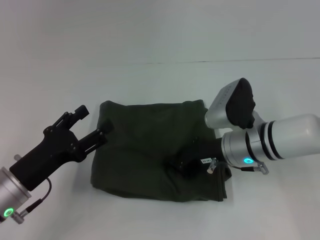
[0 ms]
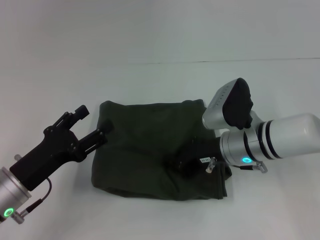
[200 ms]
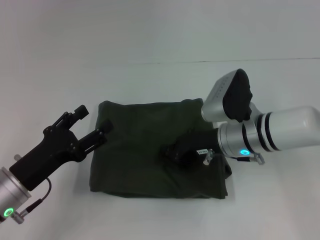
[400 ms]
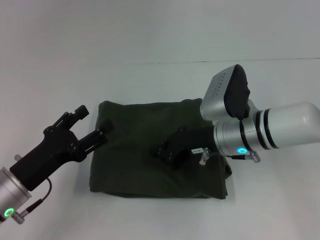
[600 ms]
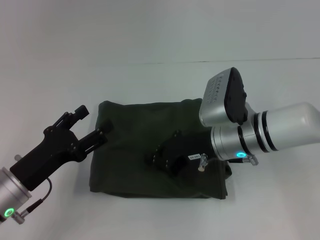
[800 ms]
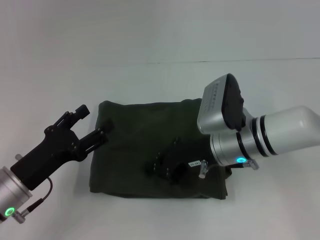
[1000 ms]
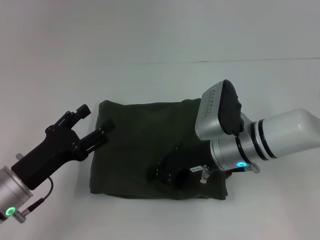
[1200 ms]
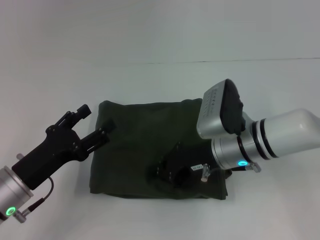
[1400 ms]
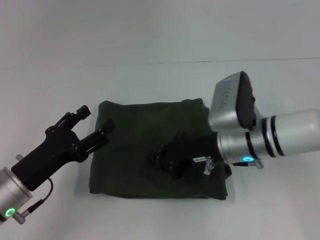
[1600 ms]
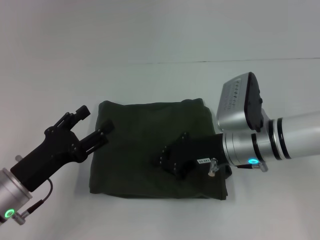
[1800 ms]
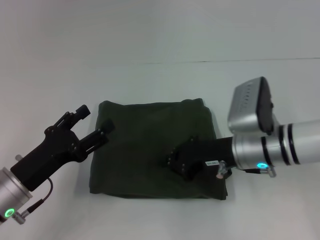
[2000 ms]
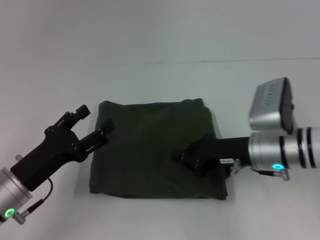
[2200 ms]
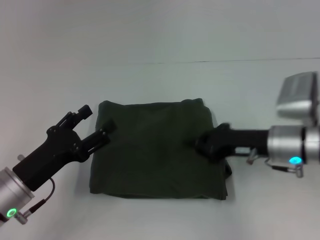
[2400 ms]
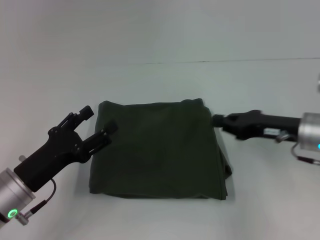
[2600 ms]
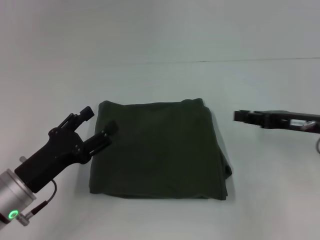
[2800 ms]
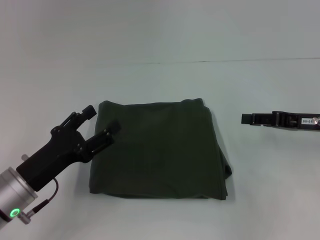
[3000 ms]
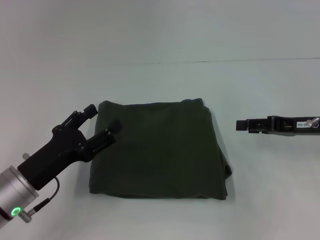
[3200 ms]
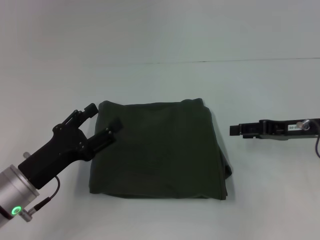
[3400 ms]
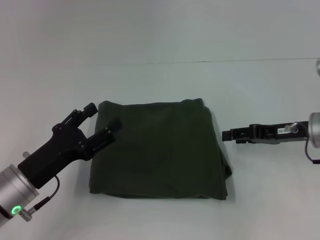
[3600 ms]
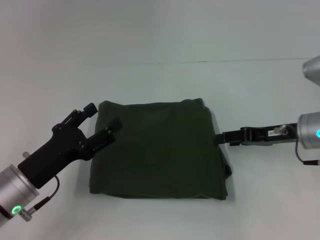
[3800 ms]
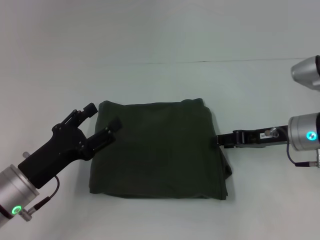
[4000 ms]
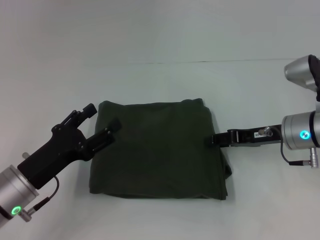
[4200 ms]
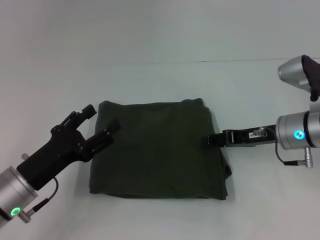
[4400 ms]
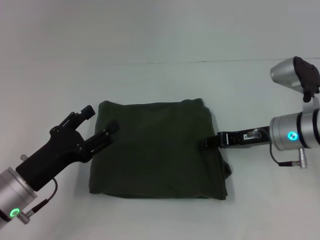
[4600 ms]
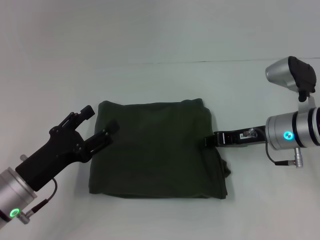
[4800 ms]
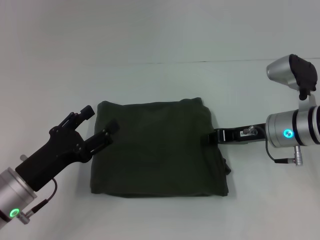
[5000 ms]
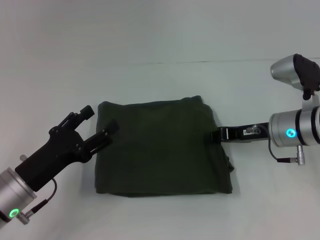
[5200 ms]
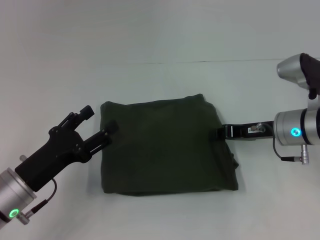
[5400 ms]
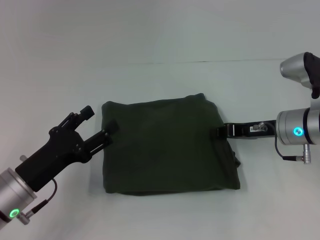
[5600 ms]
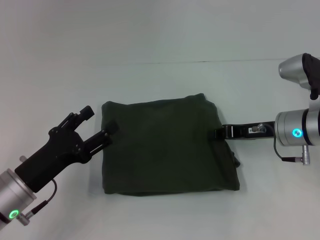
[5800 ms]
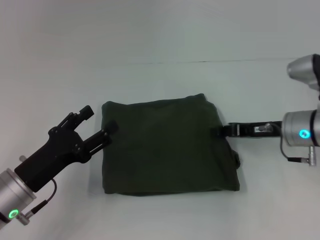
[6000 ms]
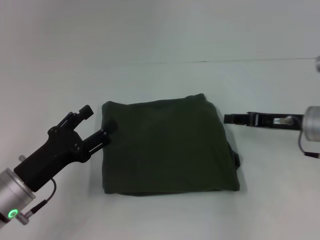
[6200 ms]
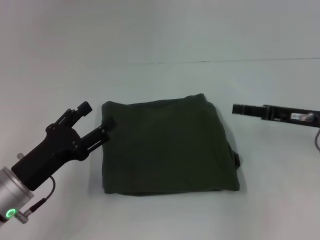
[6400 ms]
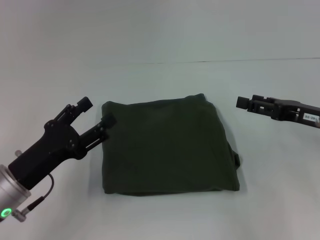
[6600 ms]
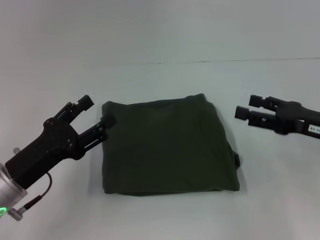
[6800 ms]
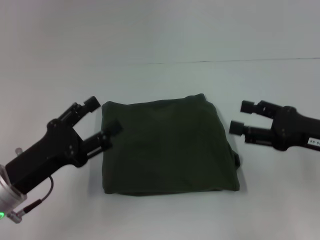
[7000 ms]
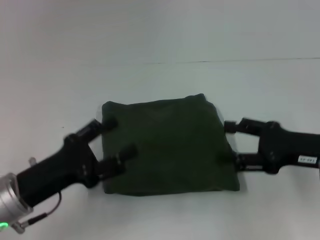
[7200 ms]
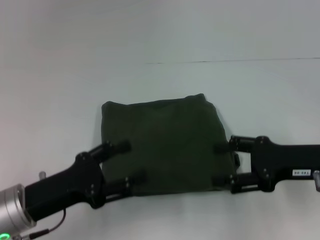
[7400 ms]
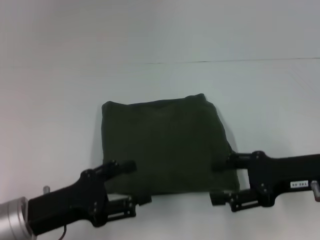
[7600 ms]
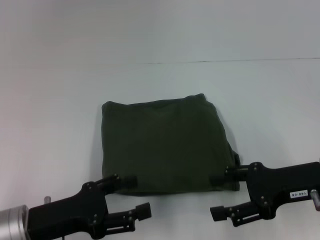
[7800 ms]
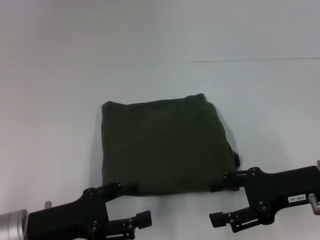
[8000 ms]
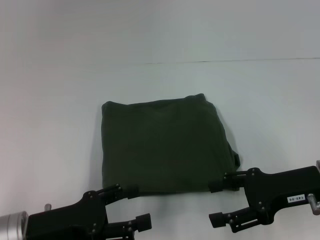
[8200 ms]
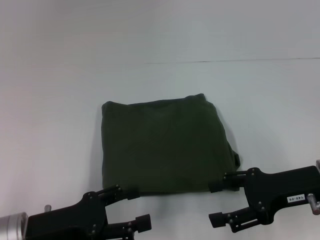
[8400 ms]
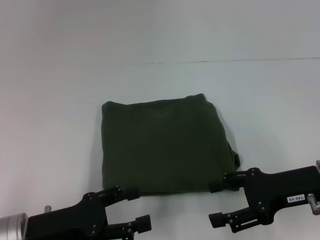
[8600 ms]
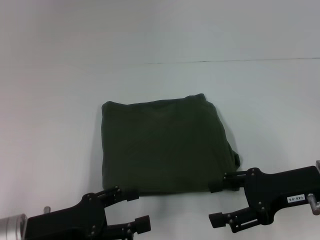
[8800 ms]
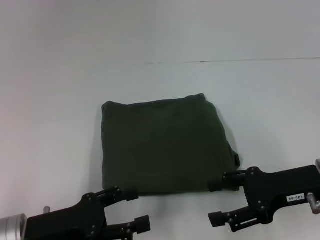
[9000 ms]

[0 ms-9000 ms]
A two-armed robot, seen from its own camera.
0 ms to 1600 ms: There are only small adjustments of the grippers.
1600 ms to 3000 ms: The right gripper goes some 15 cm to the right.
3000 ms to 4400 ms: The right gripper moves to the left, some 5 cm, and opens its fingers.
4400 ms to 6000 ms: The right gripper closes its fingers.
6000 ms to 7600 ms: The right gripper moves backward, approximately 10 cm, and opens its fingers.
7600 ms to 9000 ms: The grippers stay close to where they were, moving slightly.

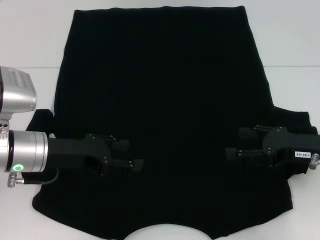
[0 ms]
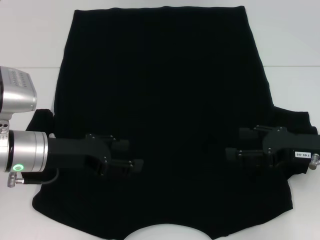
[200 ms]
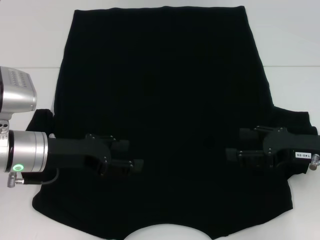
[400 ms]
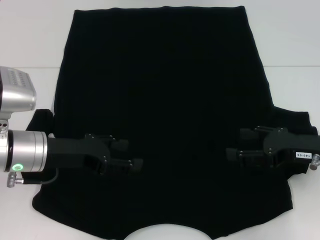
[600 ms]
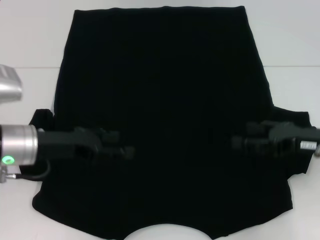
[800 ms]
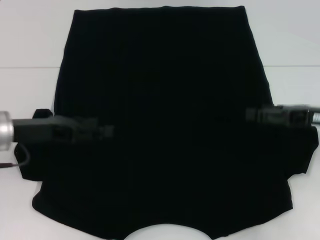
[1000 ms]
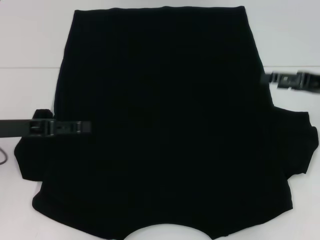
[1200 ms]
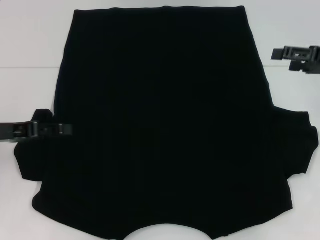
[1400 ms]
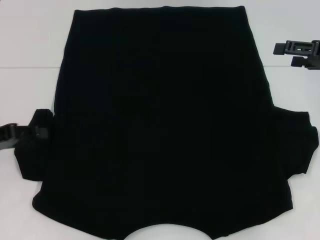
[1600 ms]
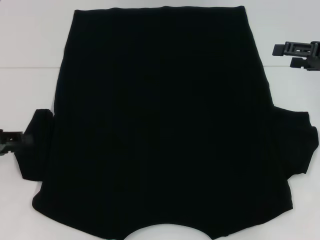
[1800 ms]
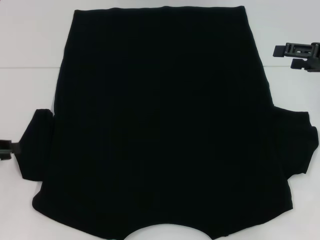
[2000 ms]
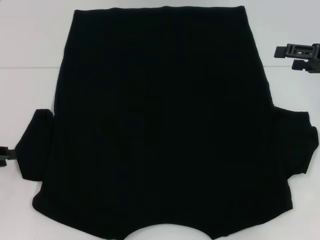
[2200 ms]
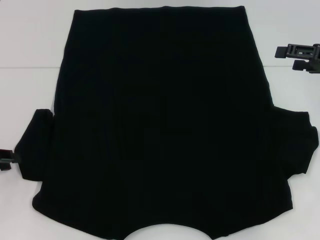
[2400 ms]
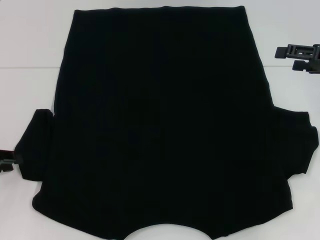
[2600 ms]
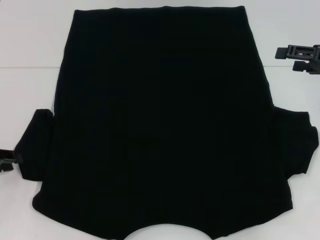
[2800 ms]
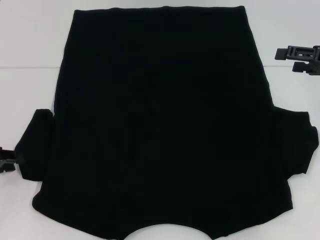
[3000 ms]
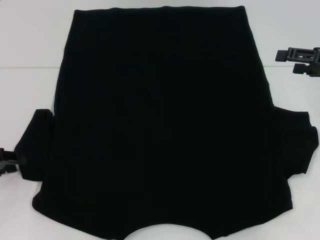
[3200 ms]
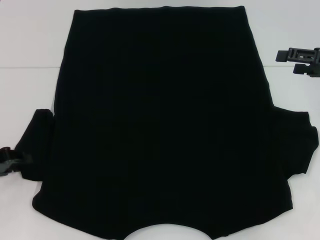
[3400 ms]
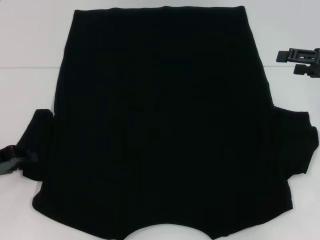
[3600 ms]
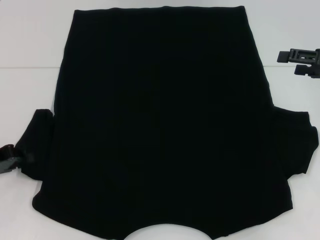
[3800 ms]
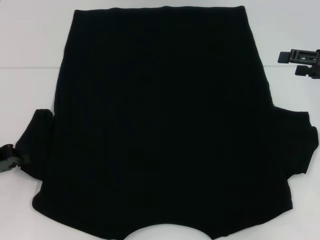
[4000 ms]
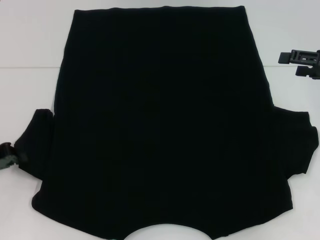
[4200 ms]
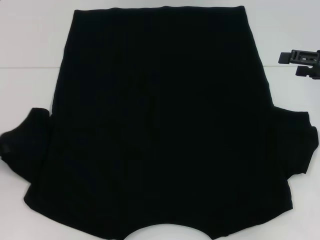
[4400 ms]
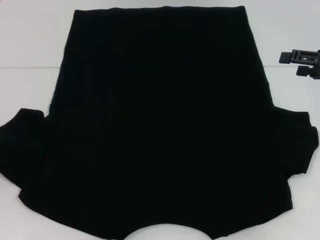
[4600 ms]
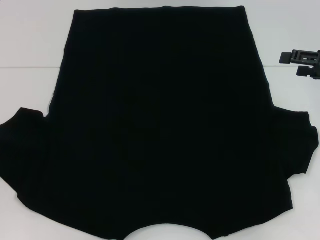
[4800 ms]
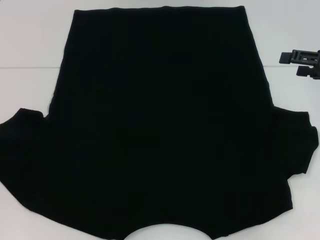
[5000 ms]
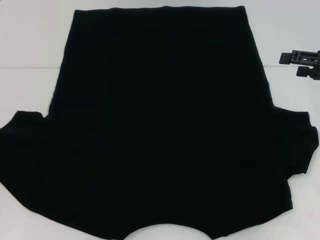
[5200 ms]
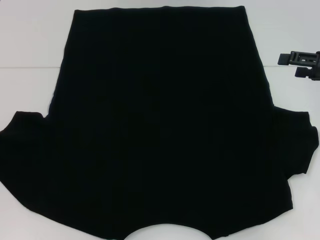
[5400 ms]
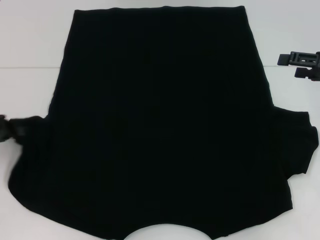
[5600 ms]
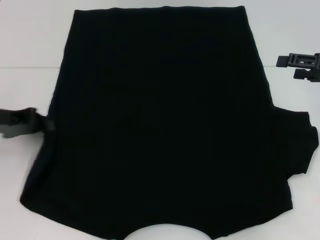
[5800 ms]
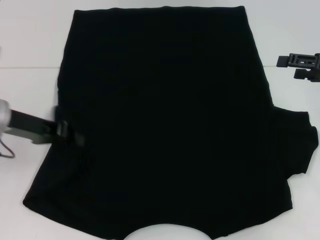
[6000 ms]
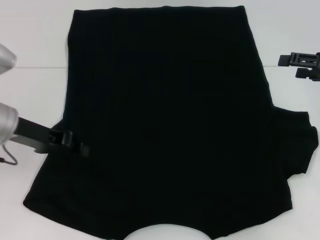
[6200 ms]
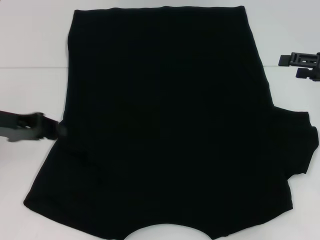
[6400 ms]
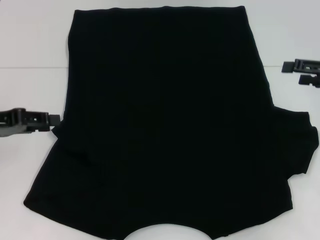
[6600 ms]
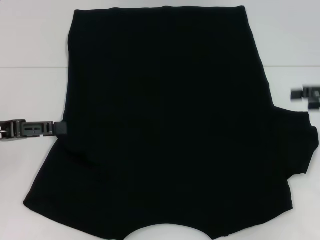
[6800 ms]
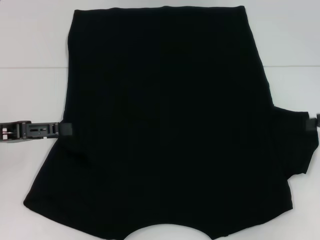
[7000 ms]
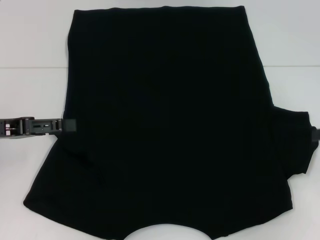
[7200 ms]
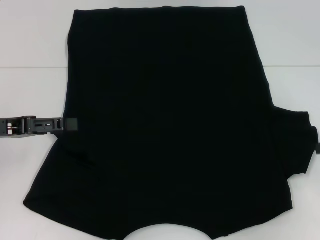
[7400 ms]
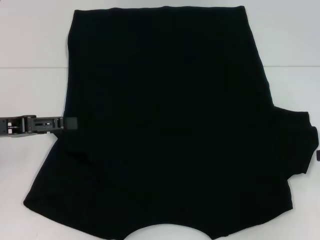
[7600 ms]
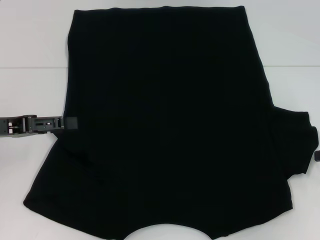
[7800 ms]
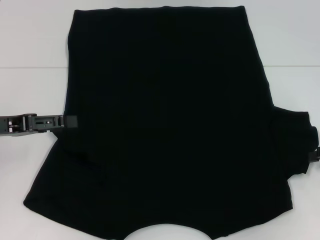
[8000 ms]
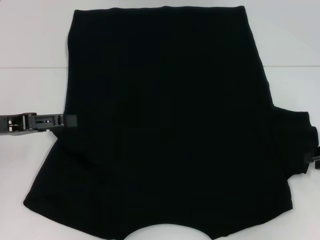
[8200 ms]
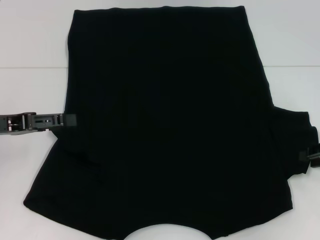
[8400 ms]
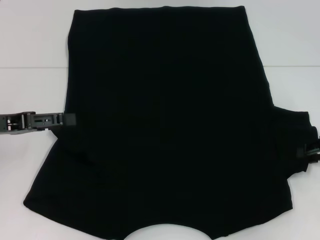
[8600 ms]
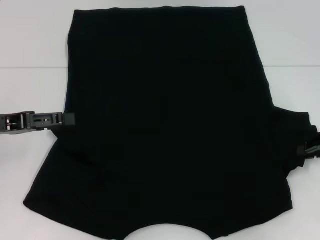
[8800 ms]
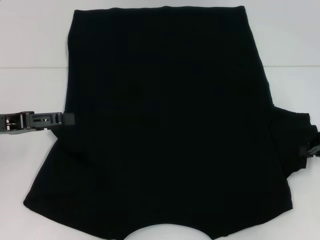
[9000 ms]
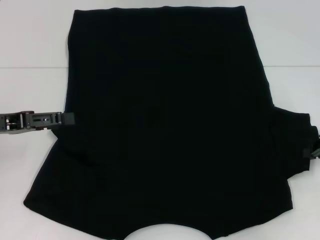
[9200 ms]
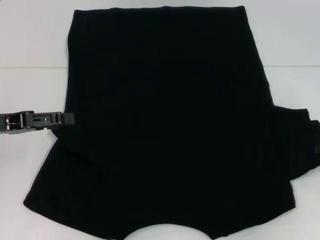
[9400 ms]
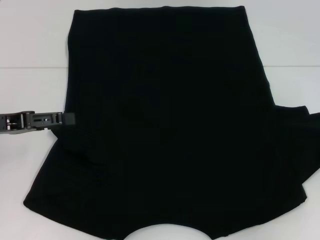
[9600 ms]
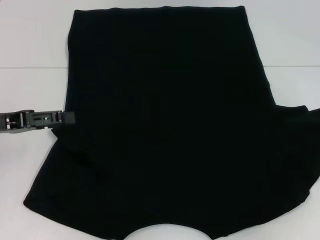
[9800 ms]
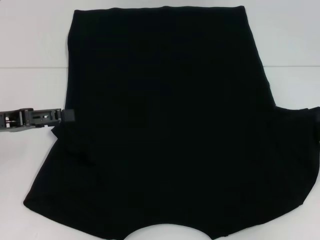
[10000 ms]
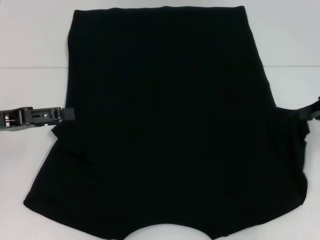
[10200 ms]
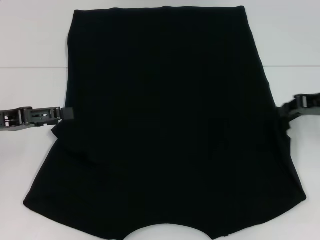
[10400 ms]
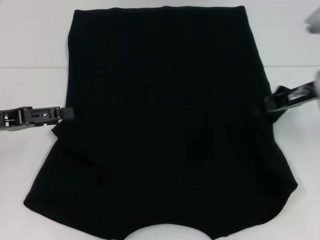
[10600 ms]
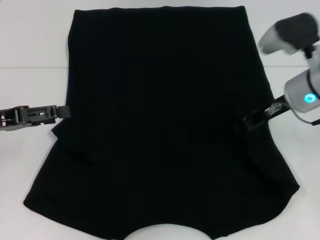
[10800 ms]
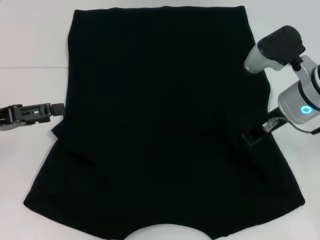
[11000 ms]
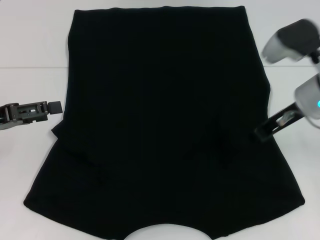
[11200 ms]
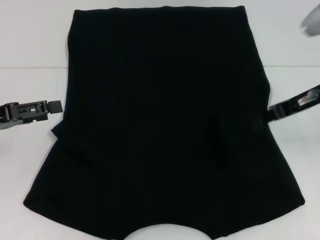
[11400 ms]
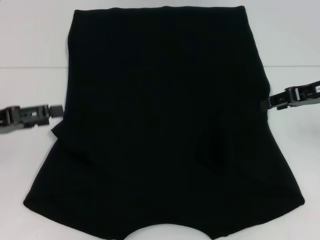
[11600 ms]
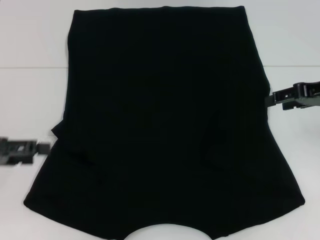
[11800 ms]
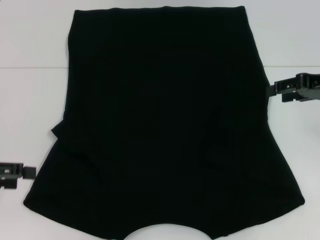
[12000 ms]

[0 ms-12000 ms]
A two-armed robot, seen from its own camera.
Step, 0 ms to 6200 ms: Fold the bottom left sleeve with your left hand.
Step, 6400 ms to 11000 ms: Fold the bottom right sleeve with your right hand.
0 ms to 1600 ms: The right gripper heads upward, forward and to the right, covering roughly 15 cm. The left gripper is displaced to the left by about 10 cm.
1600 ms to 3000 ms: The left gripper moves approximately 5 cm.
3000 ms to 4400 ms: The grippers make only small movements.
4400 ms to 6000 ms: The left gripper is displaced to the right, forward and upward by about 15 cm.
6000 ms to 7600 ms: The right gripper heads backward, covering approximately 5 cm, and closes up. Meanwhile the left gripper is displaced to the left by some 5 cm, and opens up.
9000 ms to 10400 ms: The right gripper moves approximately 10 cm.
10400 ms to 12000 ms: The left gripper moves some 5 cm, while the right gripper moves roughly 10 cm to the left and comes back, and opens.

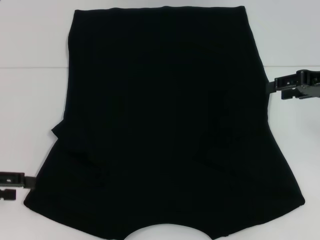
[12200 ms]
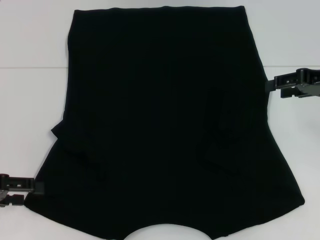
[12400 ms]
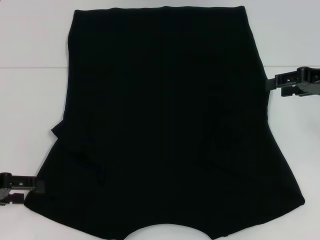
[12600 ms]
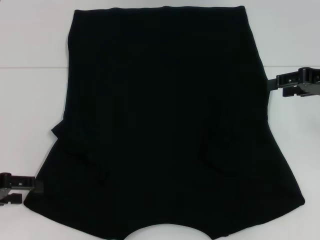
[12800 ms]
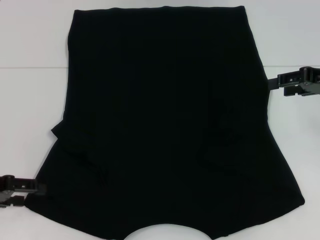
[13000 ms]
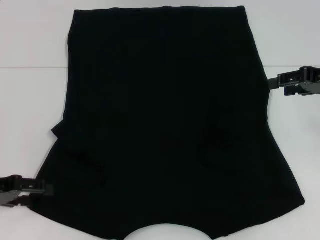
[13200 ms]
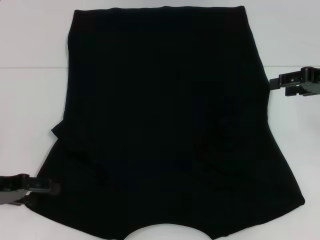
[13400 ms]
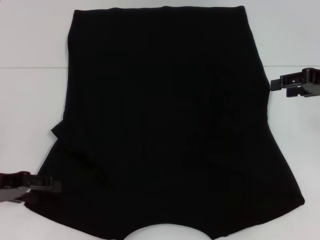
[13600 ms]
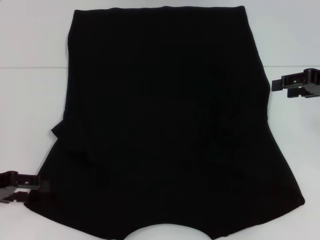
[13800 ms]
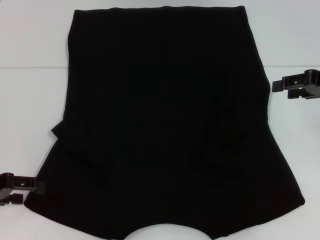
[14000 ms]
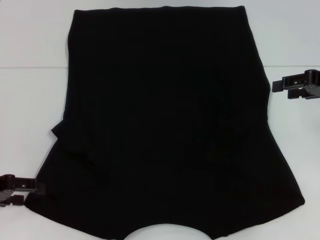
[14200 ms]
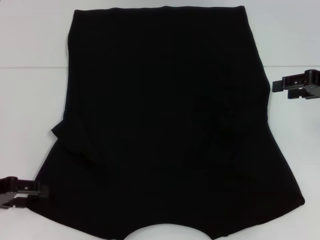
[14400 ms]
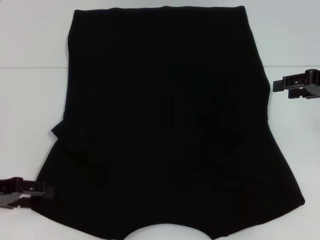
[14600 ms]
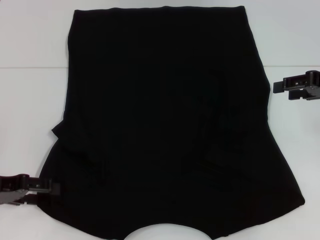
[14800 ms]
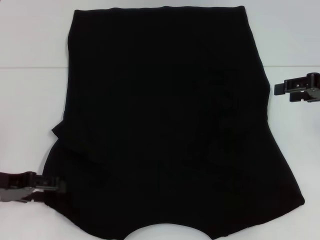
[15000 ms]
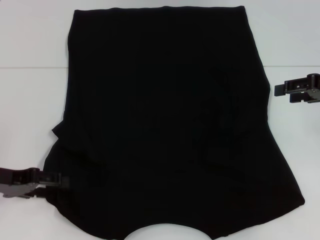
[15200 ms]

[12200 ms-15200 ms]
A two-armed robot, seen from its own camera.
12200 ms to 13800 ms: The grippers move only a little.
13800 ms to 15200 ms: There are only small adjustments of the grippers.
